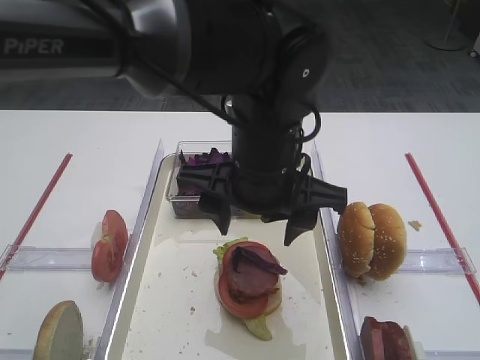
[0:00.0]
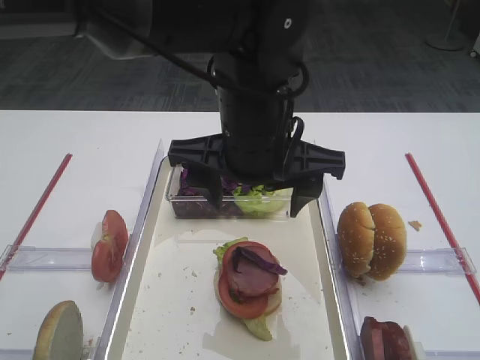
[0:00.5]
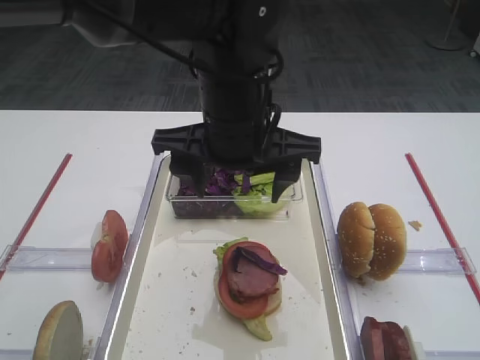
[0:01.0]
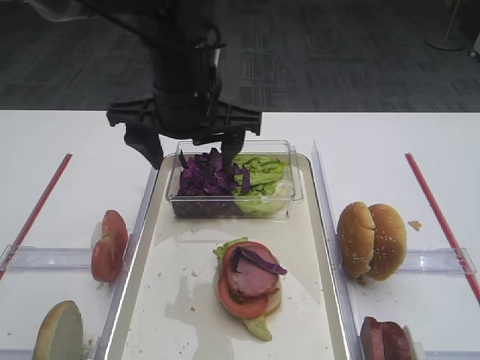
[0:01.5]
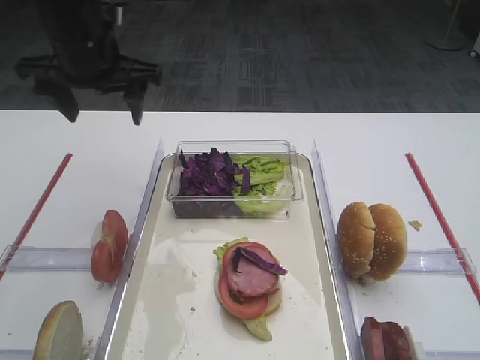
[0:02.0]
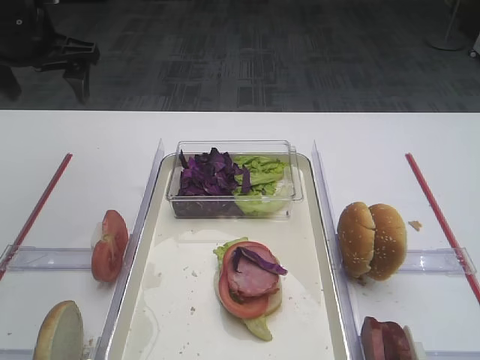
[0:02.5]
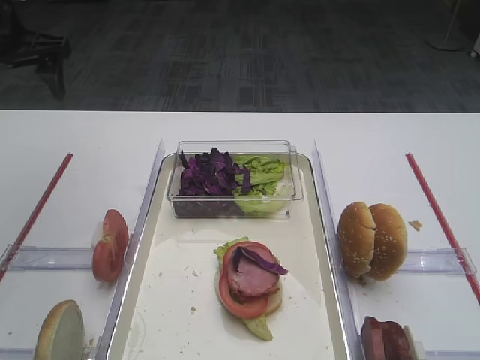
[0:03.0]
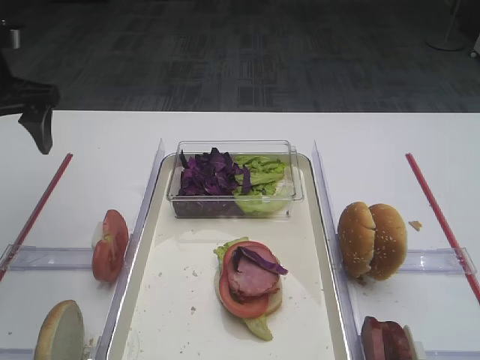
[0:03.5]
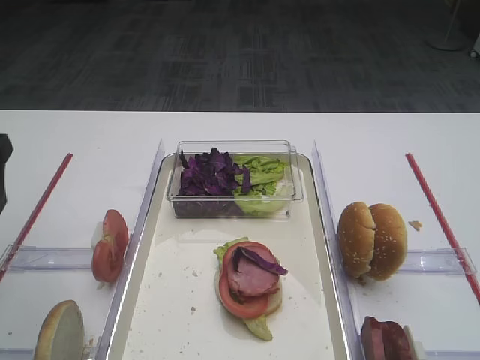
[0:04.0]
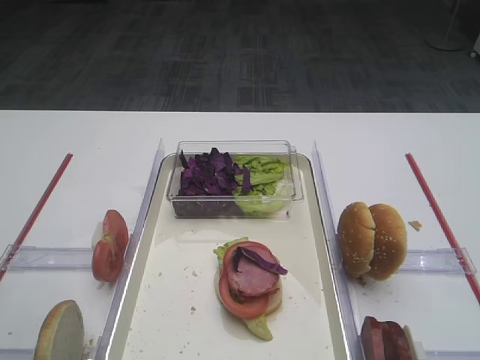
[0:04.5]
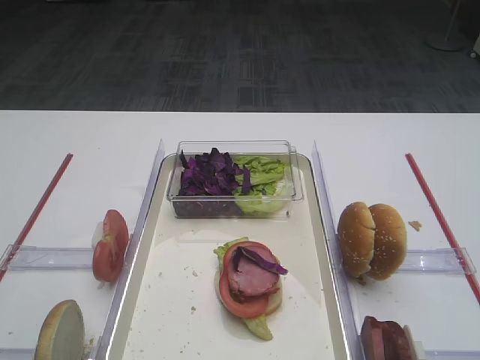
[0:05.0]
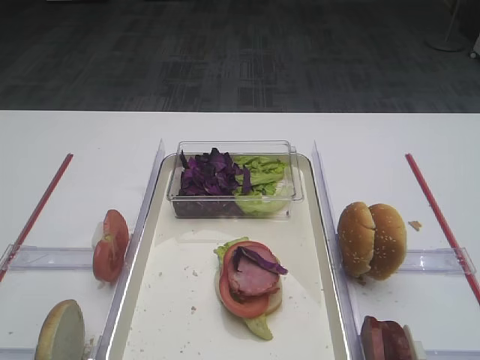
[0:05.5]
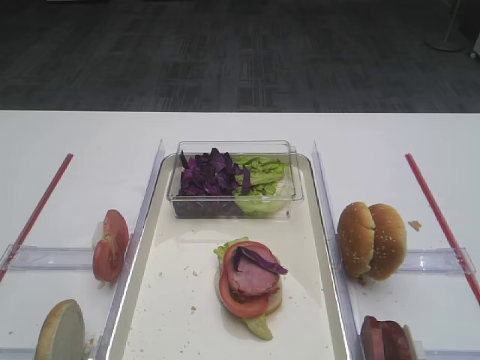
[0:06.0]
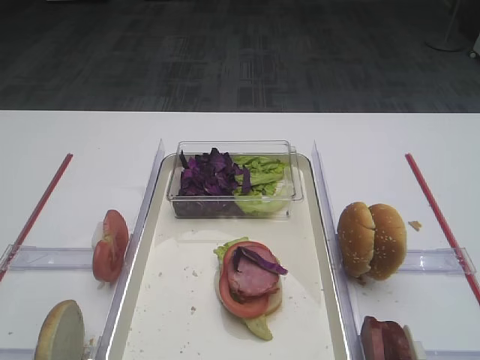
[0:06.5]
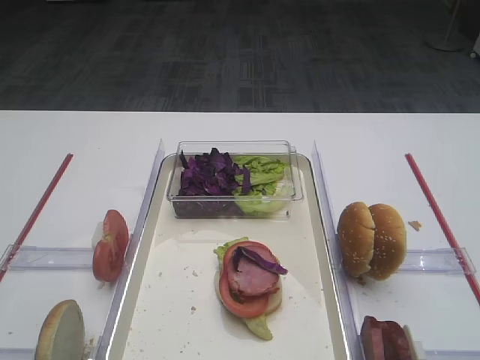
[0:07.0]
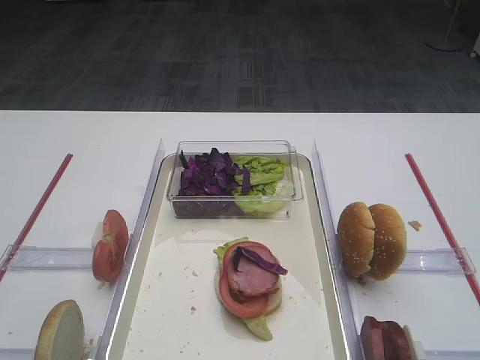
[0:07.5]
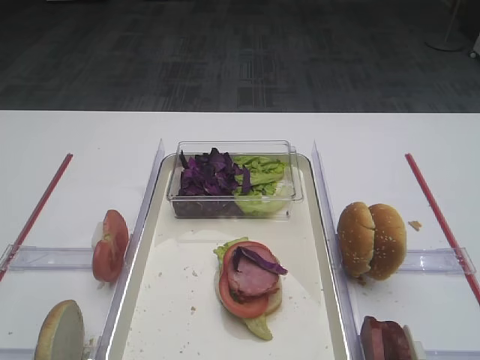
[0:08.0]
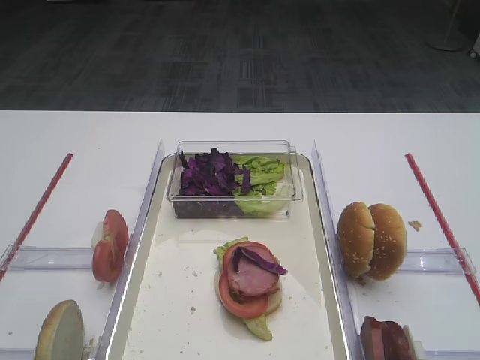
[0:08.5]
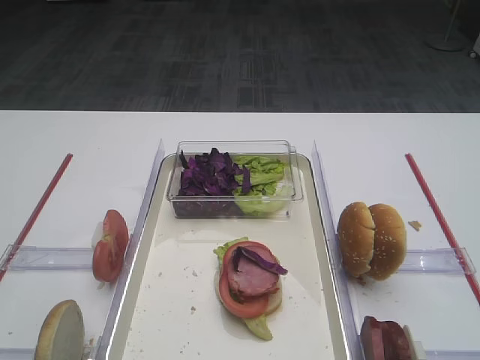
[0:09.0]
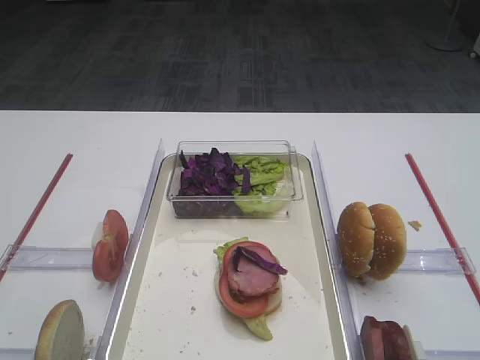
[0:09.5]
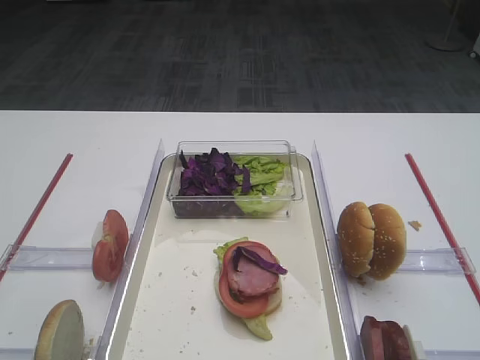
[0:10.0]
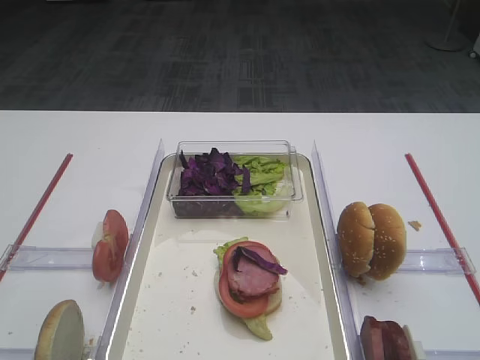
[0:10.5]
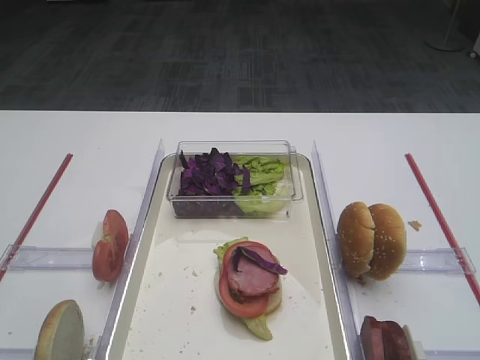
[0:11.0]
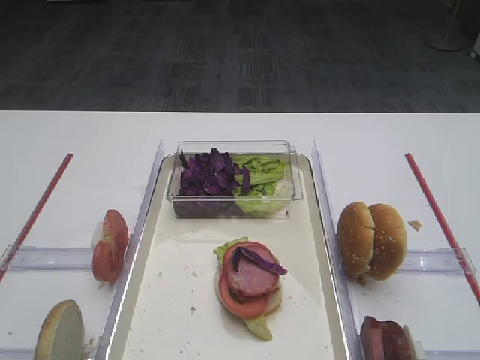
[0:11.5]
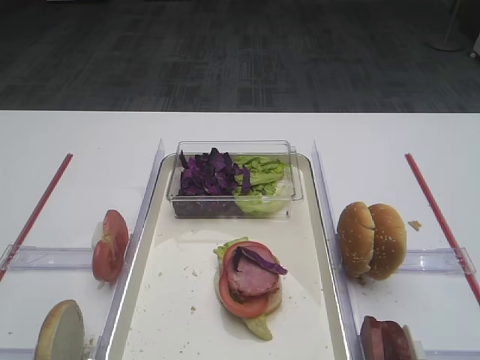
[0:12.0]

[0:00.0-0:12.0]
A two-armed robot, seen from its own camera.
0:00.0 to 0:02.0: The left gripper travels to the left and forward by approximately 25 cm.
0:02.0 to 0:04.0: The left gripper travels backward and to the left by some 20 cm.
0:04.0 to 0:06.0: The left gripper moves backward, some 25 cm.
0:08.0 to 0:12.0: Both grippers stay about where they are.
